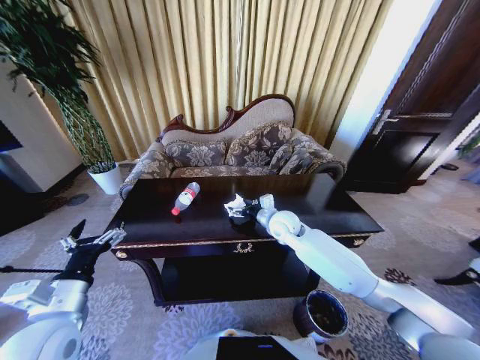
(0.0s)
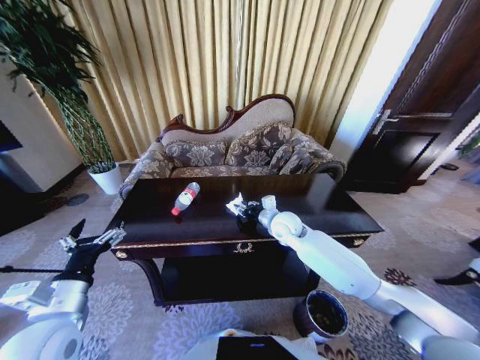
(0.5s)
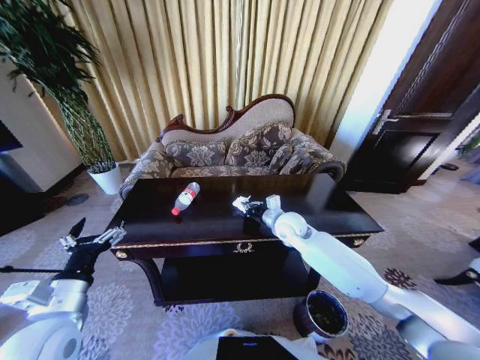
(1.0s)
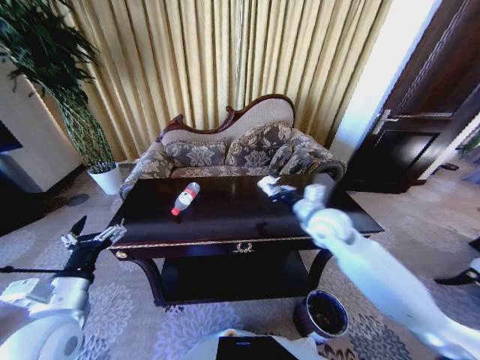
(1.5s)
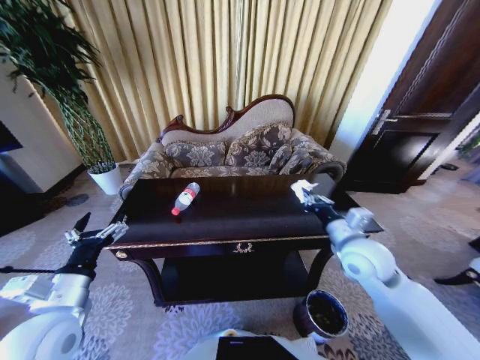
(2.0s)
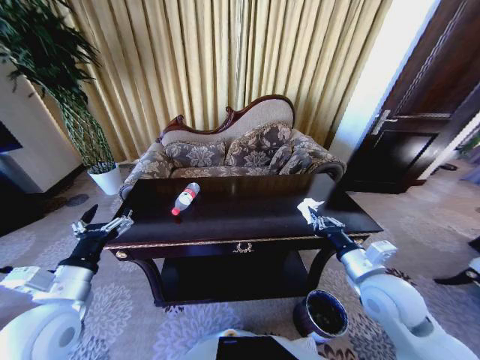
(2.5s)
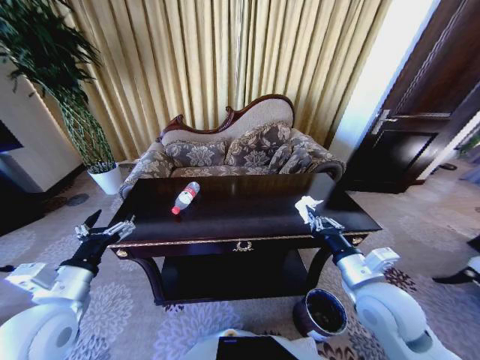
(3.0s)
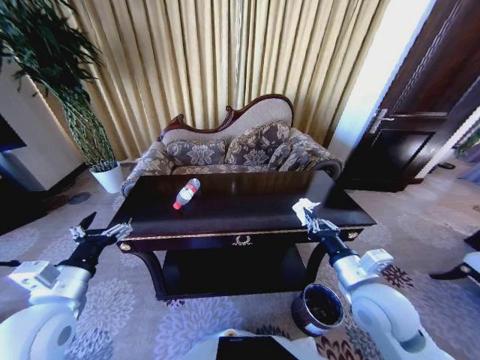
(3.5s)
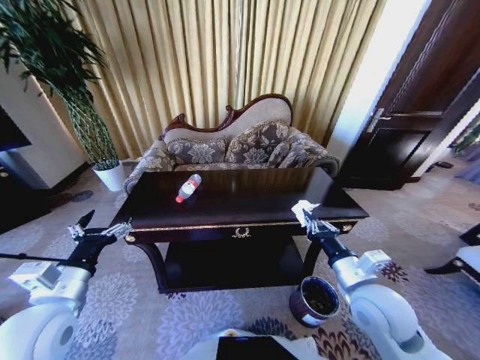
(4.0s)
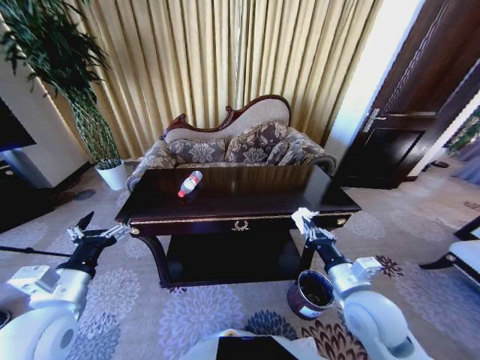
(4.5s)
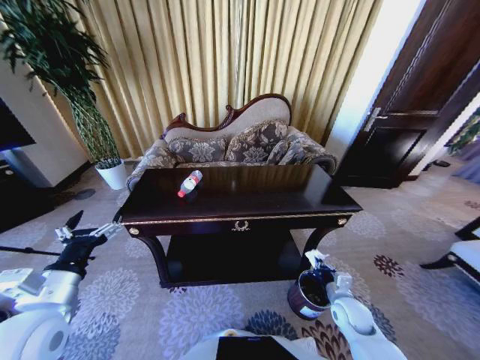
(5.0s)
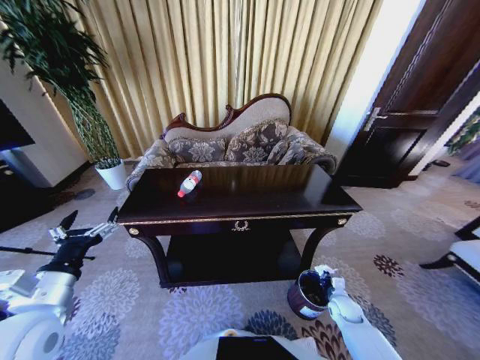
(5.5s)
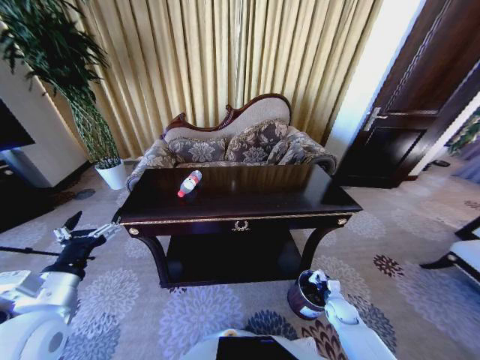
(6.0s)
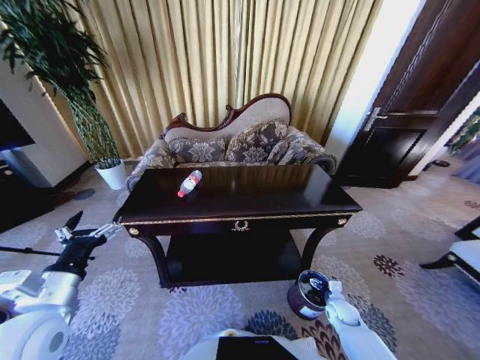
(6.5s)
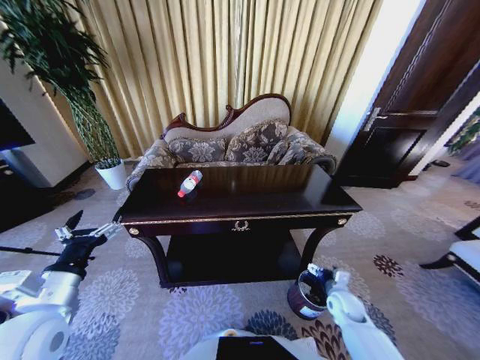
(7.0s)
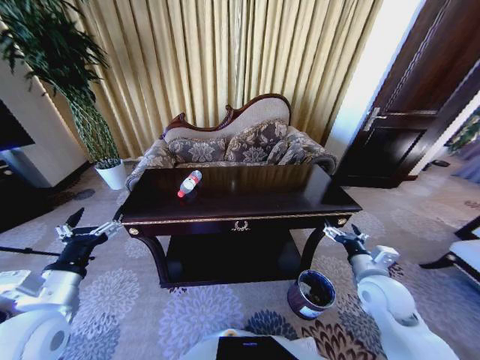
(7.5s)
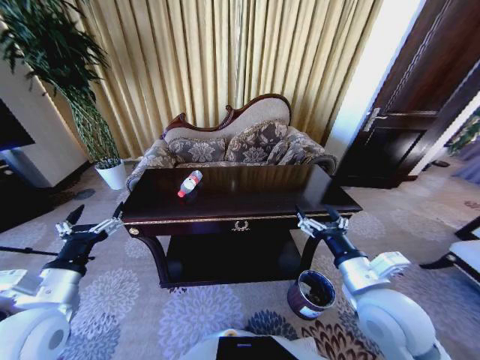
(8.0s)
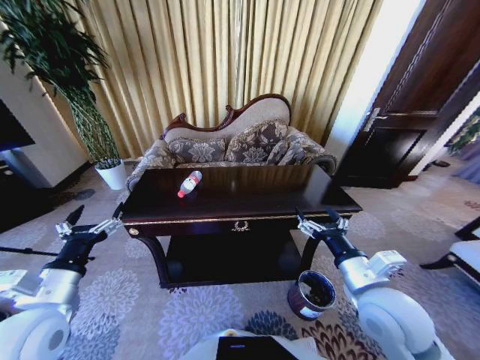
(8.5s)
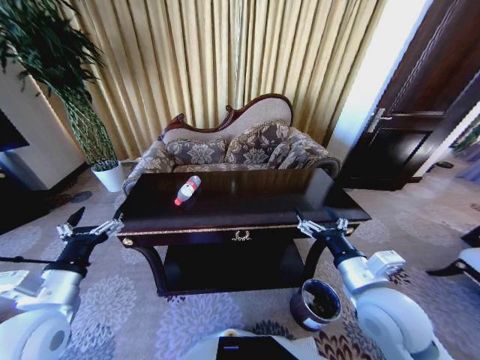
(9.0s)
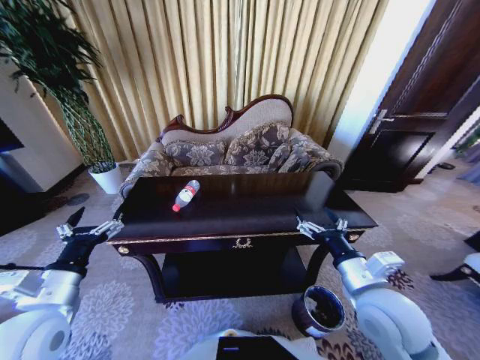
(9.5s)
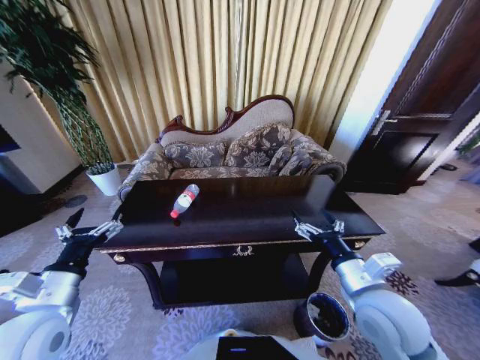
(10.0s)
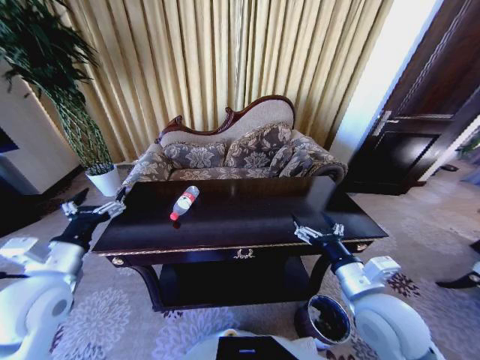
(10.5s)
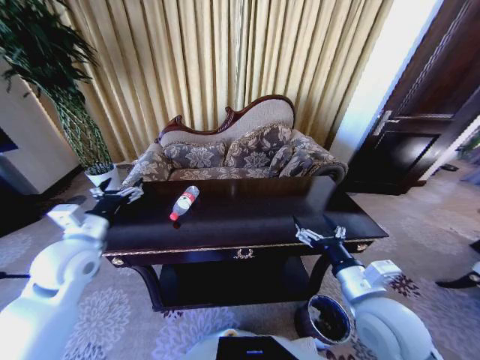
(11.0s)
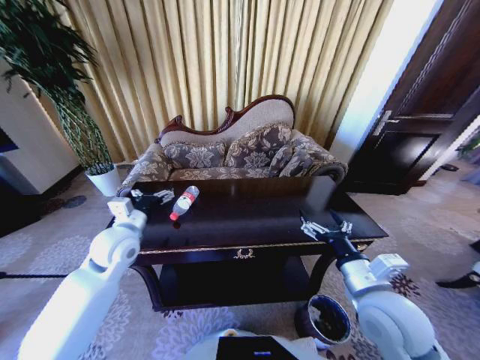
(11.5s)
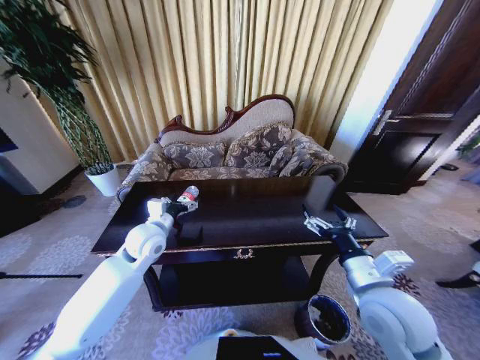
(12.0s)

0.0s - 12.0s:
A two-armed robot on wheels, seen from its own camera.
Task of the whole recording: Move to the front of the table and place the trash on the table into the trash bin.
0.0s - 2.0s: The right gripper moves backward and to the right, approximately 20 cm, and closes its fingers.
2.0s - 4.0s: The right gripper is displaced backward by approximately 10 cm.
4.0s - 6.0s: The right gripper travels downward by roughly 30 cm.
6.0s - 8.0s: The right gripper is displaced upward by some 35 cm, and opens.
10.0s - 12.0s: The left gripper is displaced forward and to the right by some 25 cm.

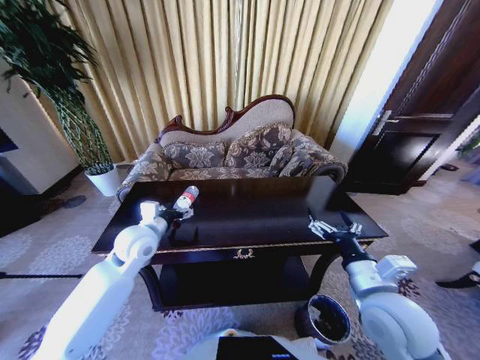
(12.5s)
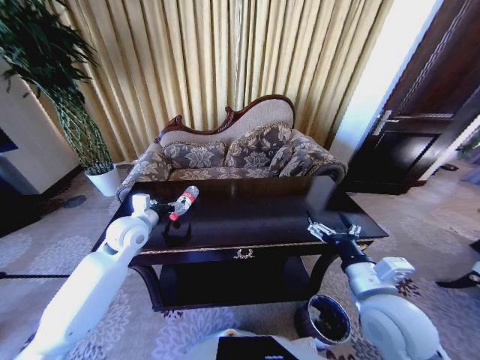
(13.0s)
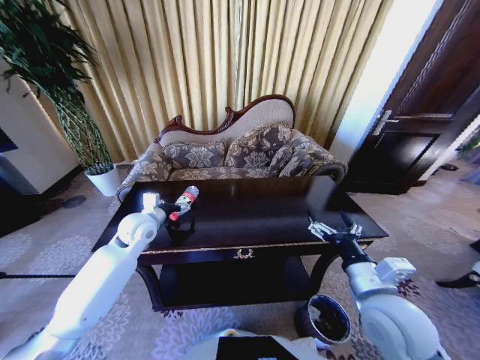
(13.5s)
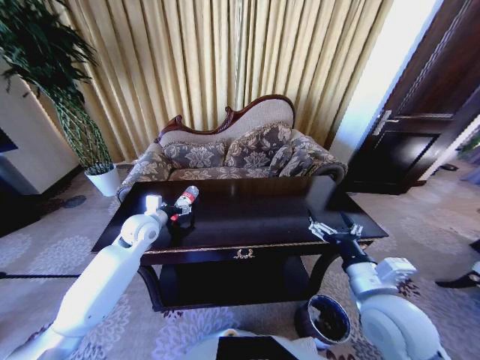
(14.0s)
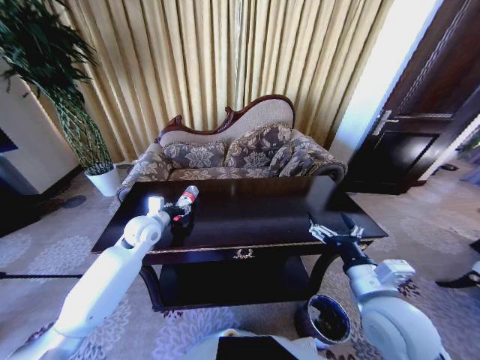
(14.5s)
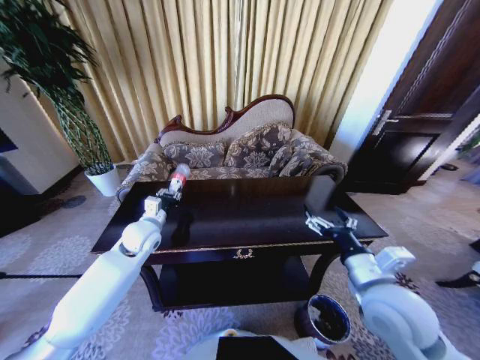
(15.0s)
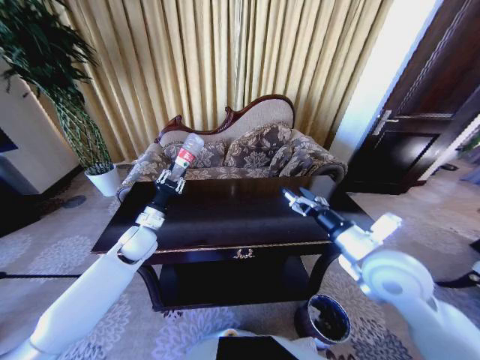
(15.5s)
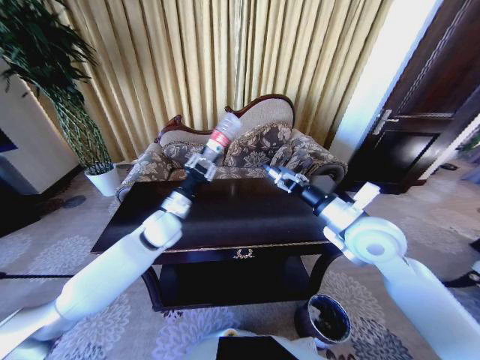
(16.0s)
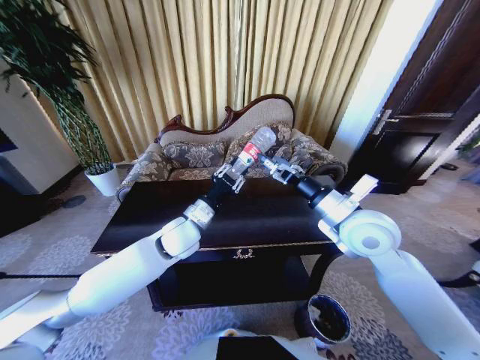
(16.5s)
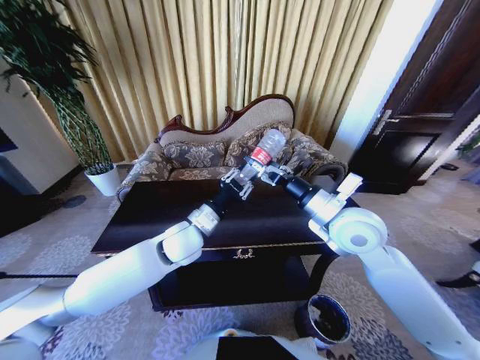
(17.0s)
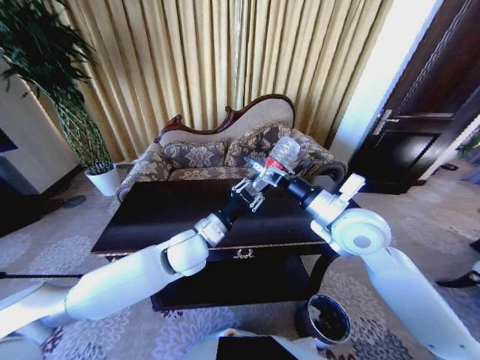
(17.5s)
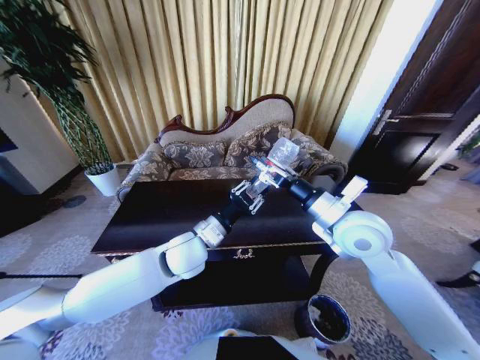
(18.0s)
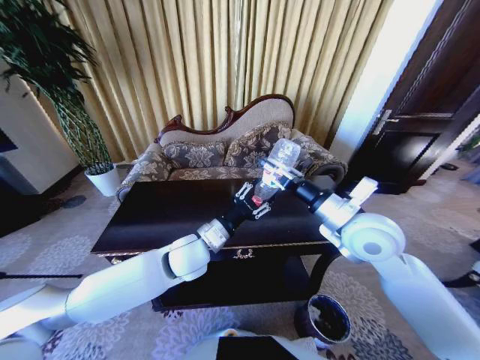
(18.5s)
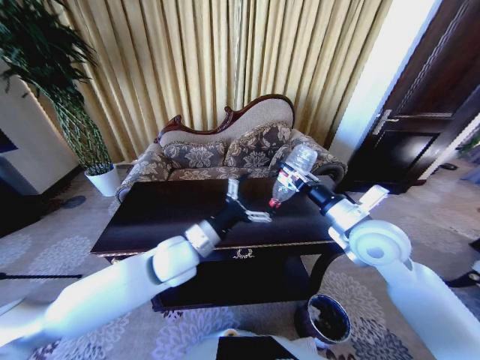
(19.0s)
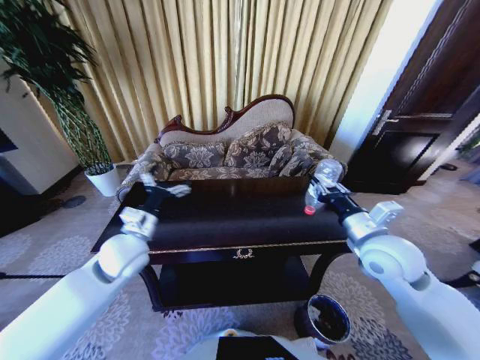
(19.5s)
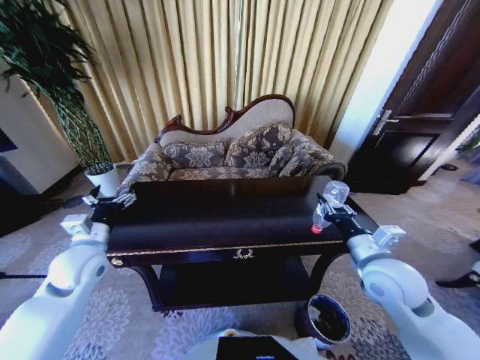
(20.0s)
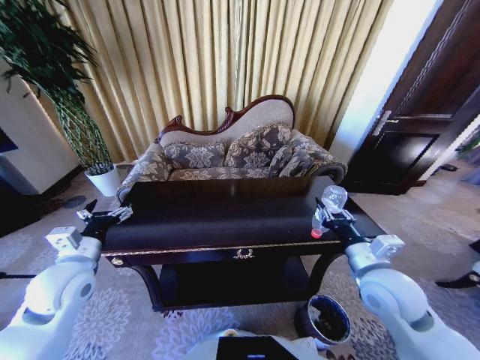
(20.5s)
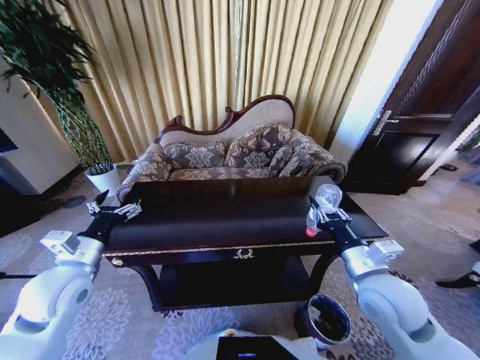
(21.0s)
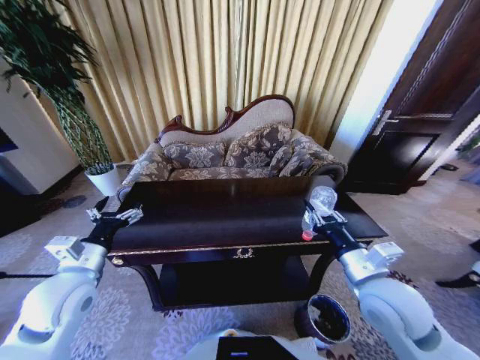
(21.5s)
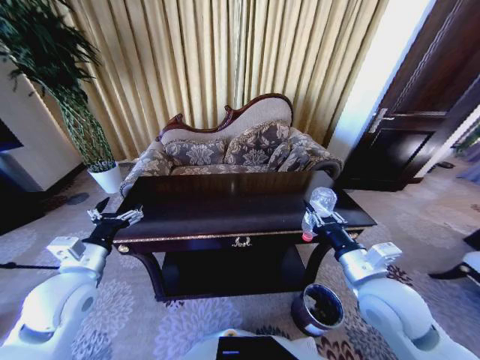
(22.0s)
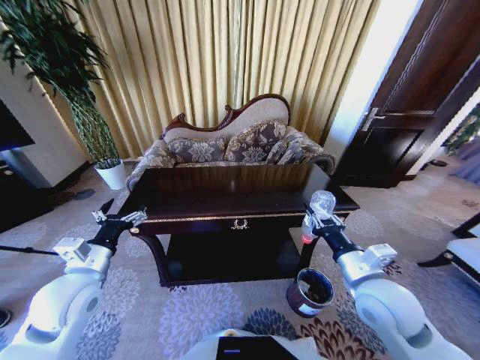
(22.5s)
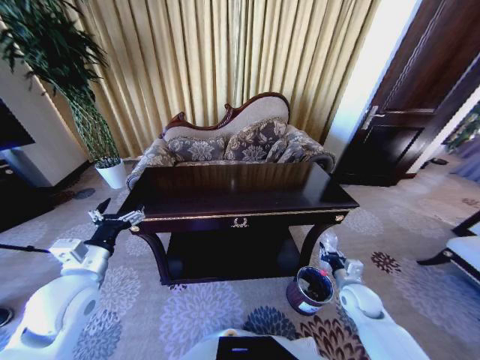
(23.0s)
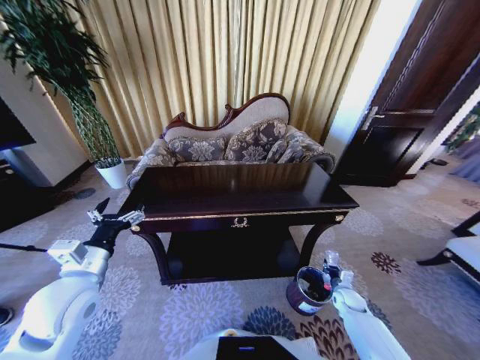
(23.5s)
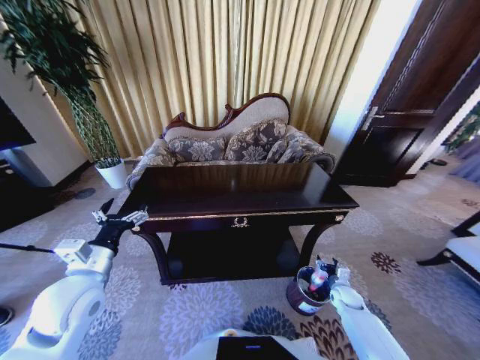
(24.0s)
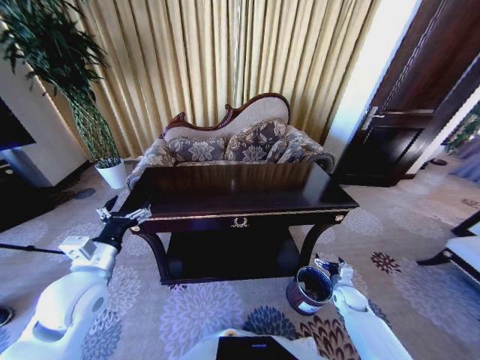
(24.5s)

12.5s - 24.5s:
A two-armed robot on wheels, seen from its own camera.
Task of the whole recording: Move to the front of the table and place the trash on the table into the trash bin.
12.5s - 14.5s: The left gripper is displaced forward by about 5 cm, and closes.
14.5s - 16.5s: The left gripper heads to the right, covering approximately 15 cm, and closes up; the right gripper goes some 15 cm forward and upward.
16.5s - 18.5s: The left gripper shifts by some 5 cm; the right gripper closes.
18.5s - 20.5s: The right gripper travels downward and backward by approximately 15 cm; the left gripper heads to the left, covering some 25 cm, and opens its fingers.
22.5s - 24.5s: The right gripper heads downward and to the right, covering about 35 cm, and opens.

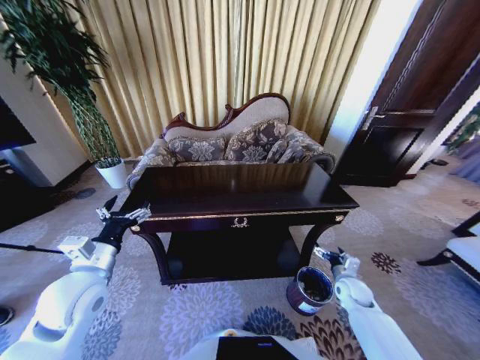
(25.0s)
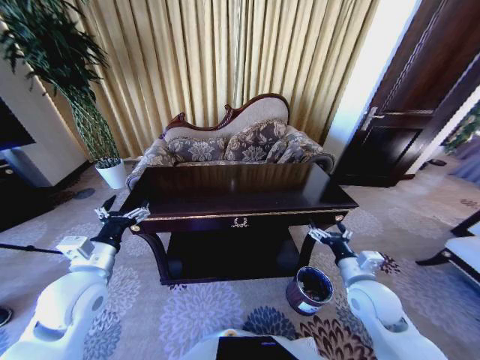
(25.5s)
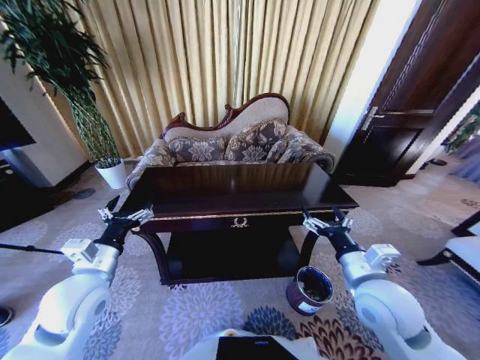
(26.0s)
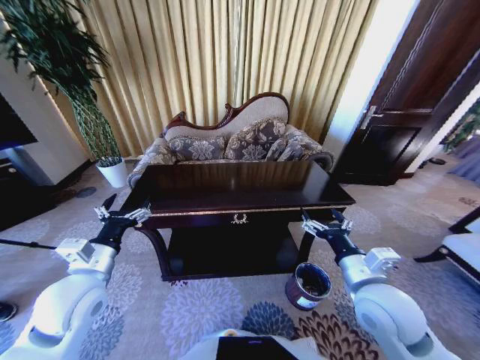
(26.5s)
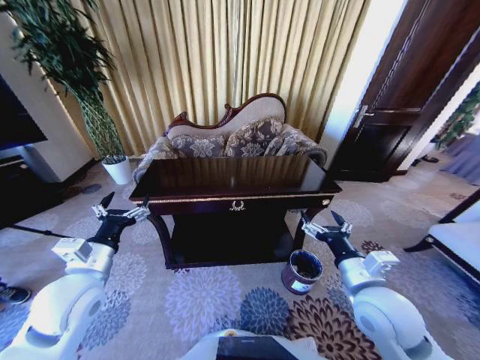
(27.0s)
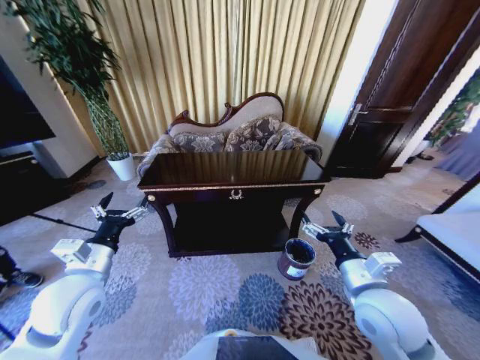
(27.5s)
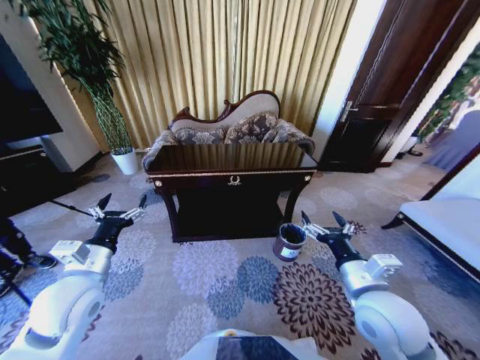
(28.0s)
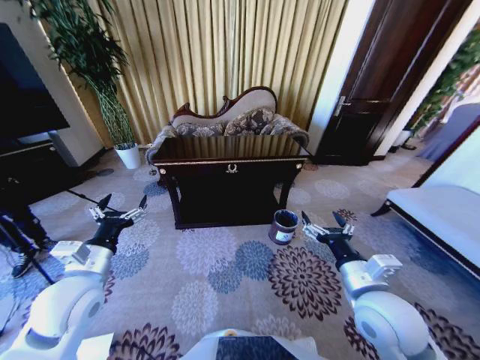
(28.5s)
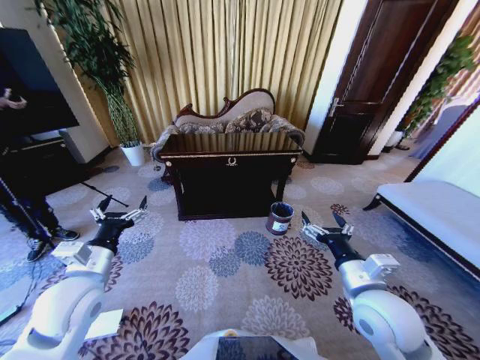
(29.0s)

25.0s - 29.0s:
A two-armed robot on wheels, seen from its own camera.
Task of the whole recording: Move to the front of the table and place the trash on the table into the trash bin.
25.0s - 27.0s: The right gripper travels upward, to the left and backward by about 30 cm.
